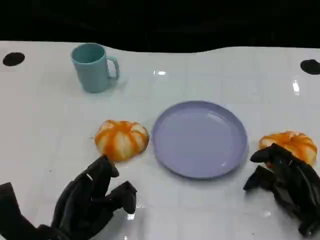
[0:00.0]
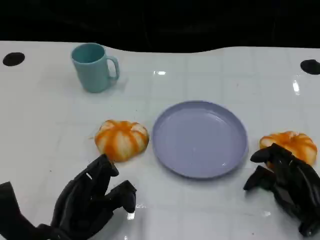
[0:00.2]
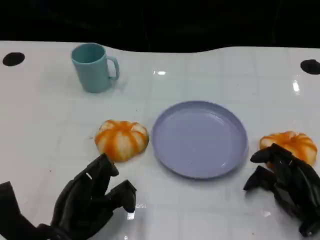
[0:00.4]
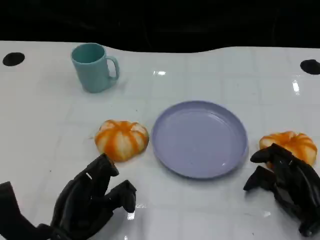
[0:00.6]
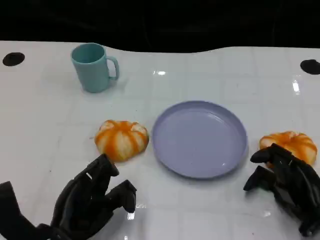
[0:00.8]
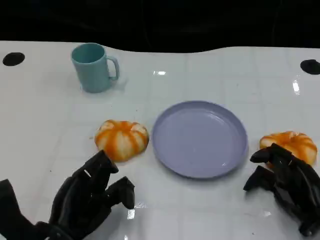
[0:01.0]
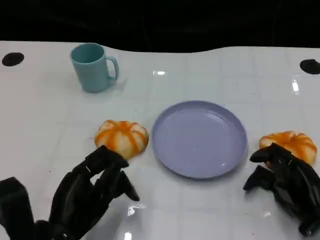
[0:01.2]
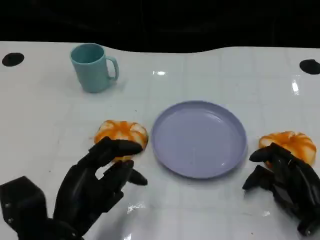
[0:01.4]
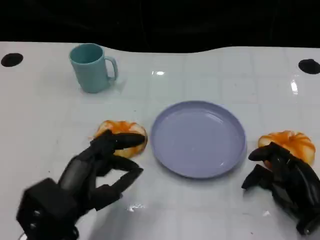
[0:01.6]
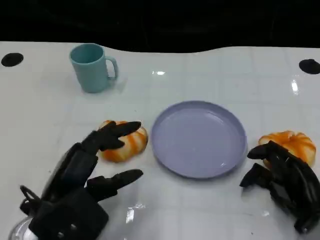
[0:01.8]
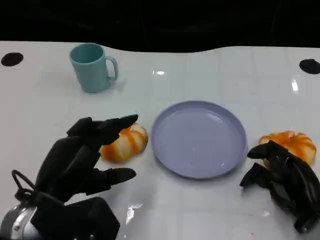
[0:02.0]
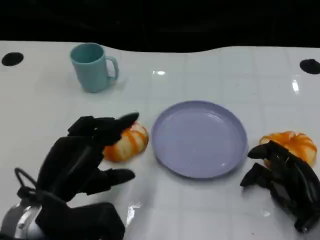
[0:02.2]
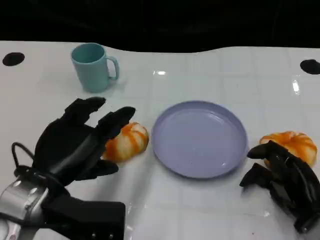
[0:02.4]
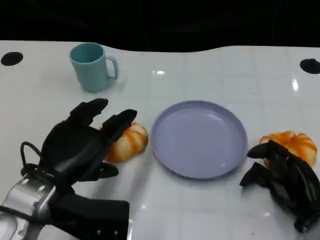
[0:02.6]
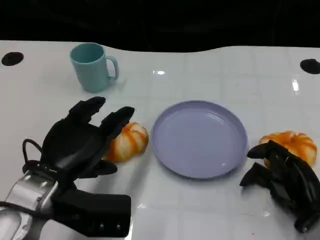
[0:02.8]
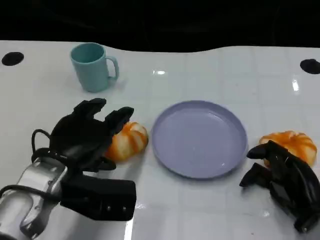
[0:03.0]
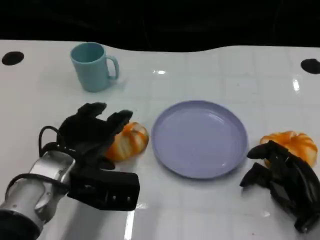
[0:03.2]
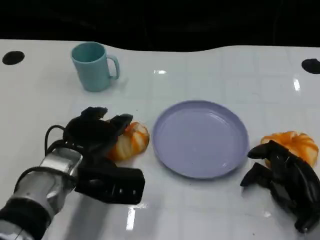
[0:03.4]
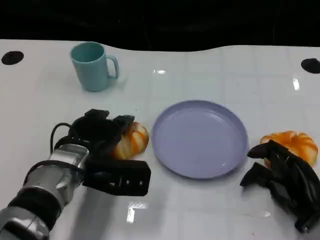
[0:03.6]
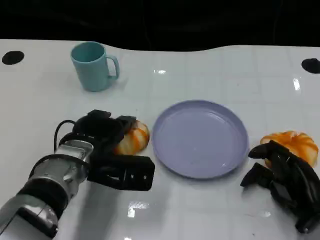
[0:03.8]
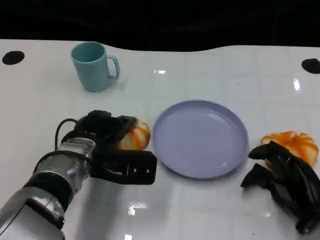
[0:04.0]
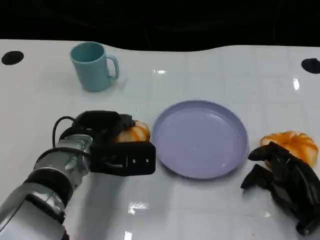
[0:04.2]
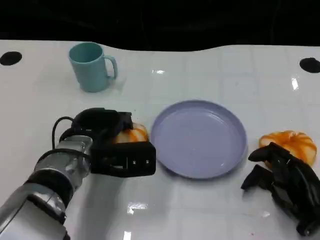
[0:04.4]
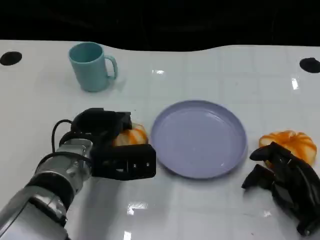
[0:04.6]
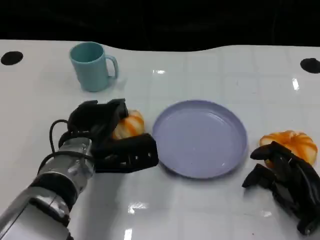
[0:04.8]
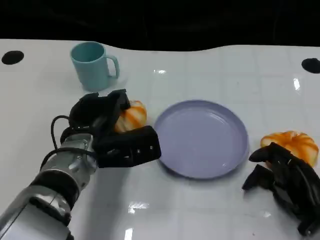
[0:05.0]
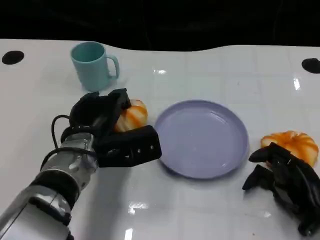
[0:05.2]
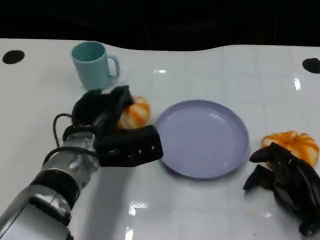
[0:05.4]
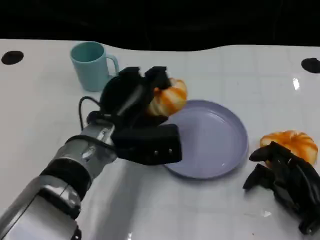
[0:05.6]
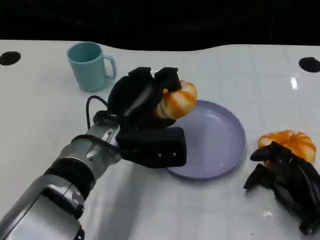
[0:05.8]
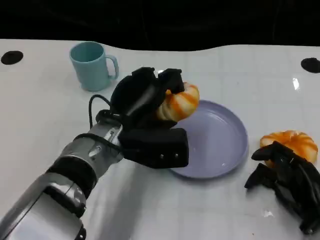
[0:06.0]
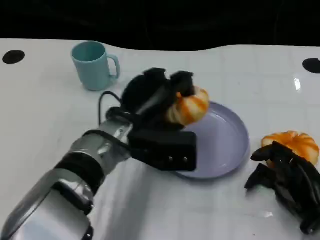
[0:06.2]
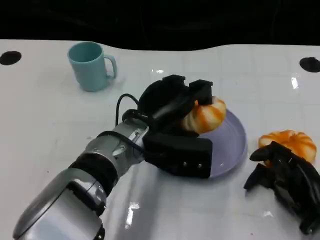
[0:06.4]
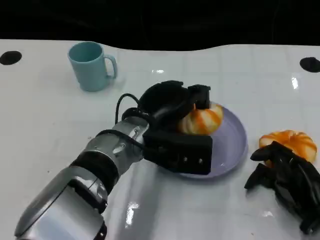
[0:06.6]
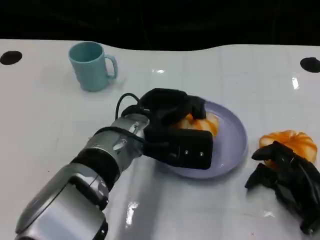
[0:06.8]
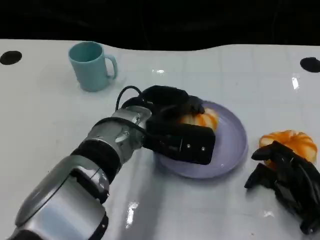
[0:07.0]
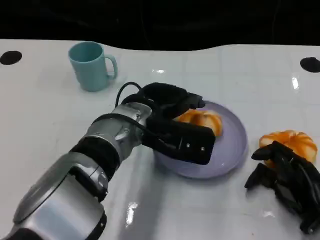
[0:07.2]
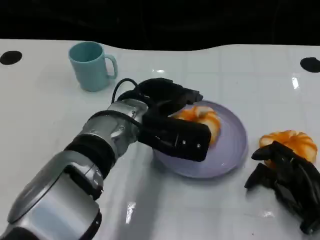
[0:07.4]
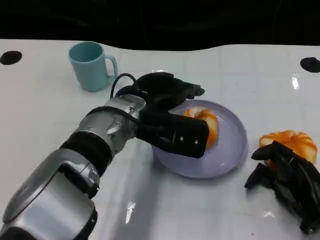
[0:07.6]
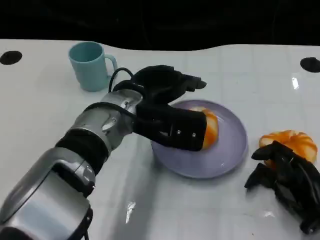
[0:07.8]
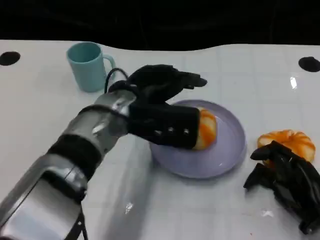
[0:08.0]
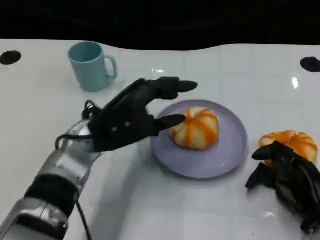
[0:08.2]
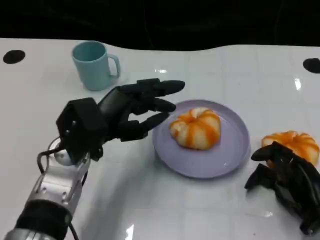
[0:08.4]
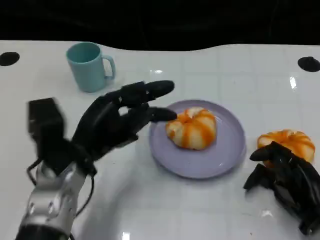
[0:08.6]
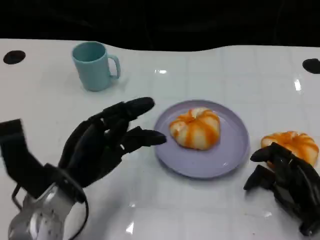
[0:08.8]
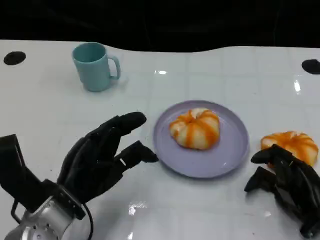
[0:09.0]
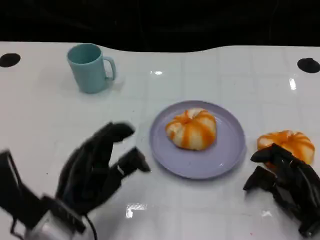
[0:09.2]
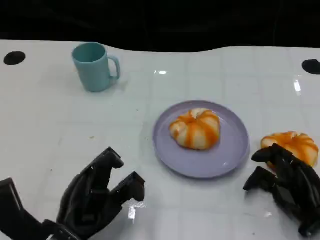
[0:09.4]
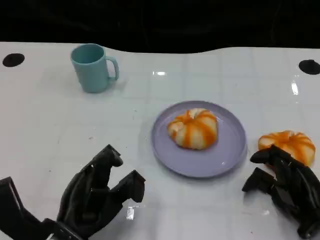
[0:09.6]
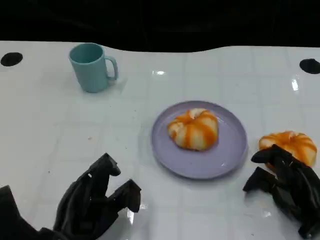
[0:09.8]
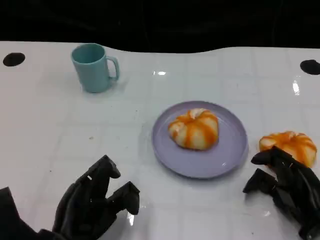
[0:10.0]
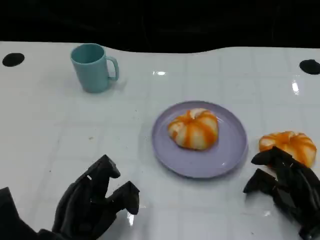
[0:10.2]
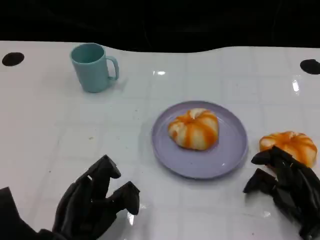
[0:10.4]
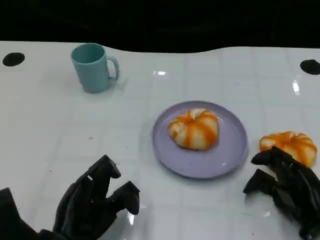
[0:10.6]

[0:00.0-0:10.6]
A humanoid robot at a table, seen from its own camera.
Task of the whole recording: Grasp the bread from the table and place it into the plate.
0:00.0 to 0:01.6: The left hand goes about 5 cm upward.
0:01.6 to 0:03.0: The left hand shifts some 10 cm forward.
0:03.0 to 0:04.6: The left hand shifts by some 5 cm.
0:04.6 to 0:06.0: The left hand heads to the right, covering some 5 cm.
0:07.6 to 0:09.0: The left hand goes about 15 cm to the left, backward and downward.
0:09.0 to 0:10.6: The left hand shifts roughly 5 cm backward.

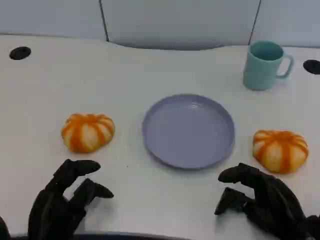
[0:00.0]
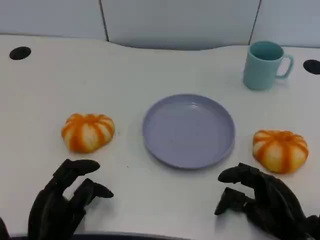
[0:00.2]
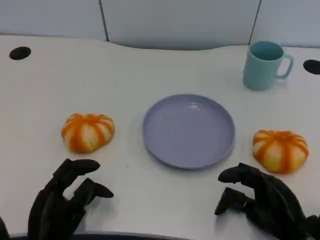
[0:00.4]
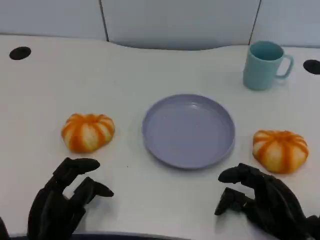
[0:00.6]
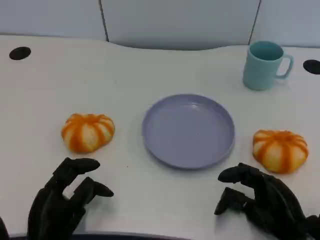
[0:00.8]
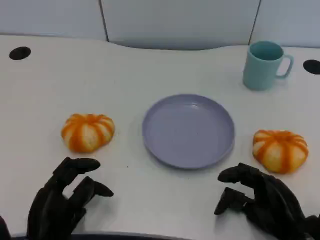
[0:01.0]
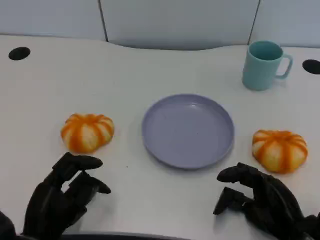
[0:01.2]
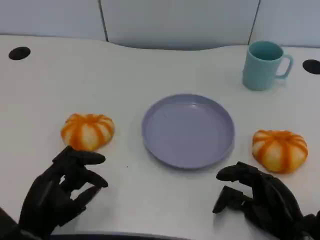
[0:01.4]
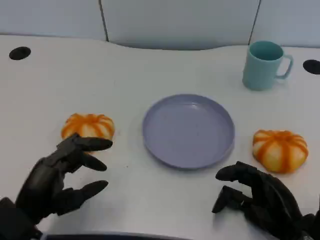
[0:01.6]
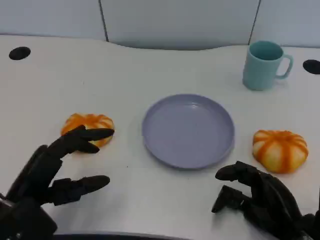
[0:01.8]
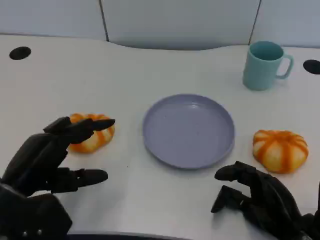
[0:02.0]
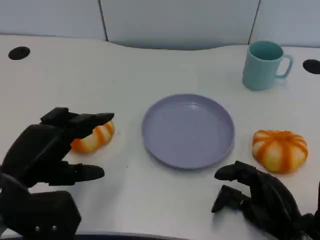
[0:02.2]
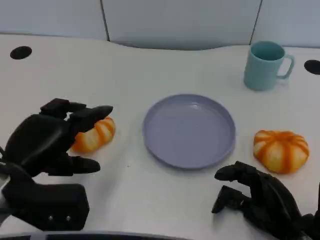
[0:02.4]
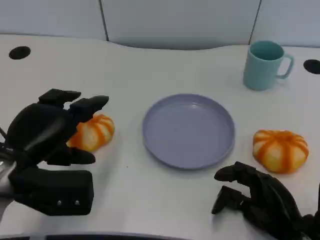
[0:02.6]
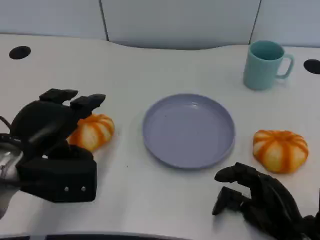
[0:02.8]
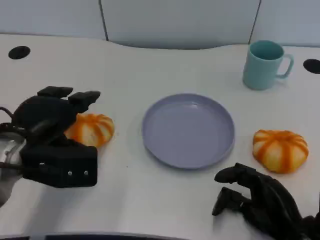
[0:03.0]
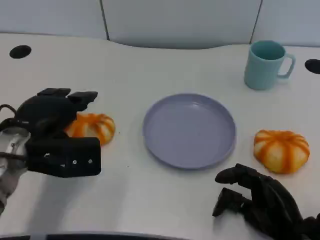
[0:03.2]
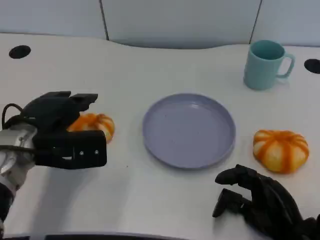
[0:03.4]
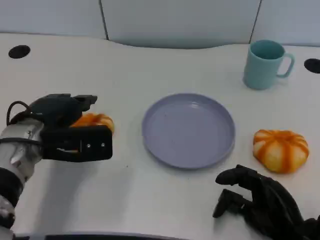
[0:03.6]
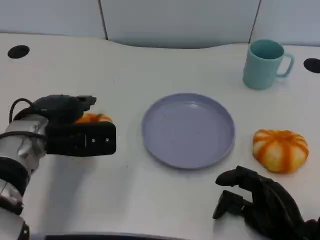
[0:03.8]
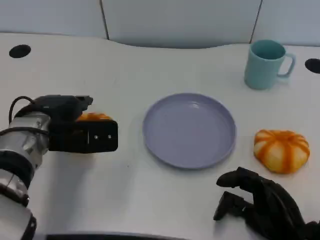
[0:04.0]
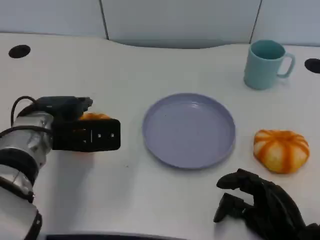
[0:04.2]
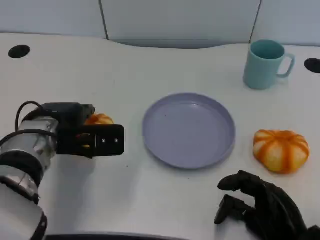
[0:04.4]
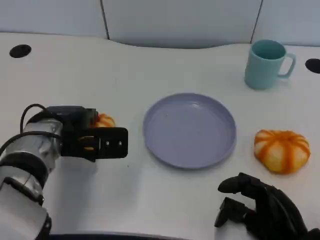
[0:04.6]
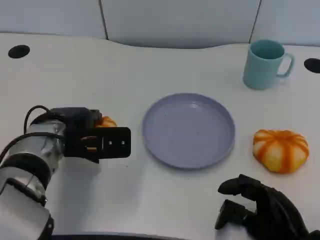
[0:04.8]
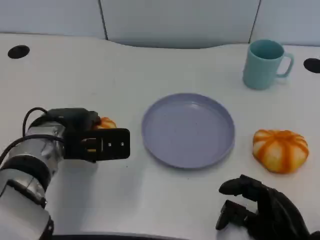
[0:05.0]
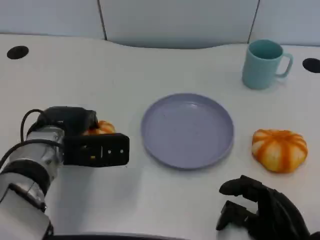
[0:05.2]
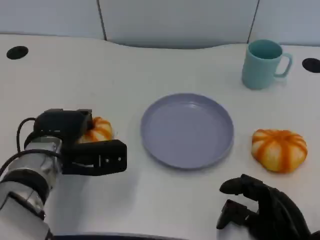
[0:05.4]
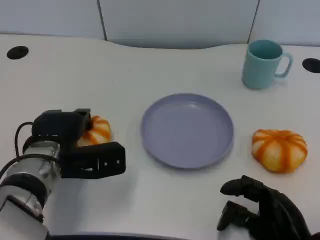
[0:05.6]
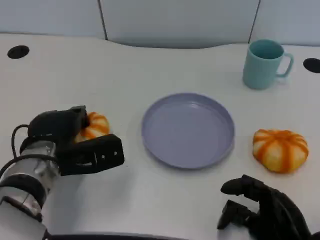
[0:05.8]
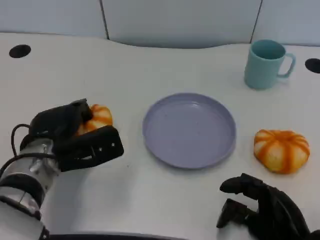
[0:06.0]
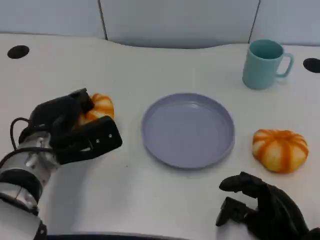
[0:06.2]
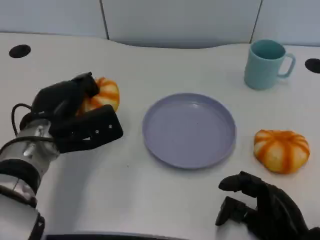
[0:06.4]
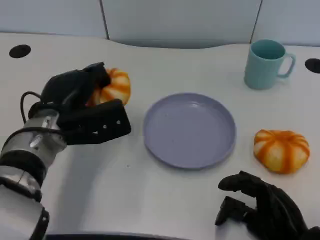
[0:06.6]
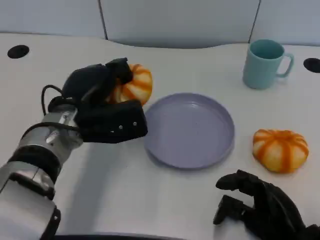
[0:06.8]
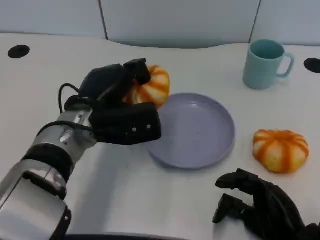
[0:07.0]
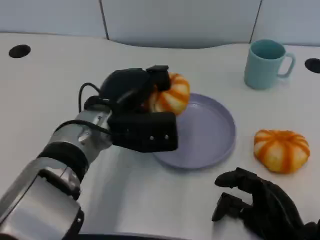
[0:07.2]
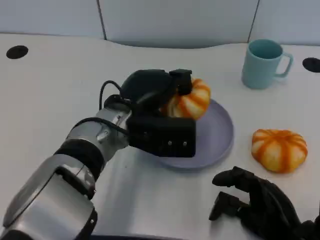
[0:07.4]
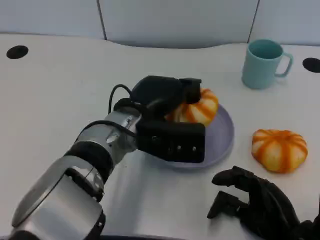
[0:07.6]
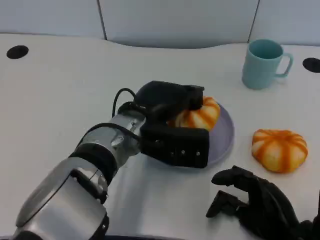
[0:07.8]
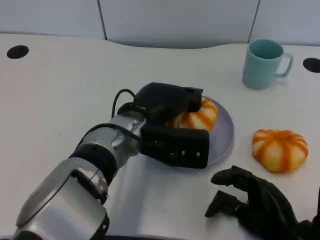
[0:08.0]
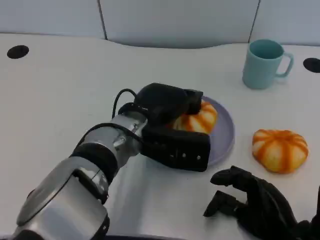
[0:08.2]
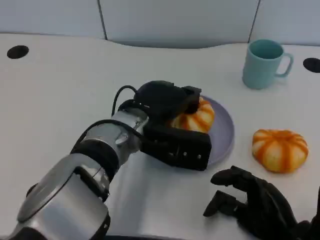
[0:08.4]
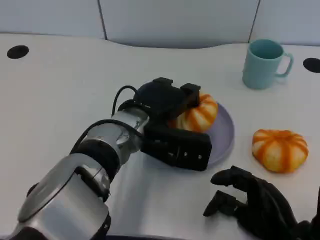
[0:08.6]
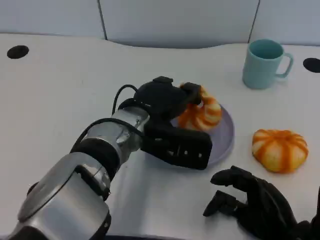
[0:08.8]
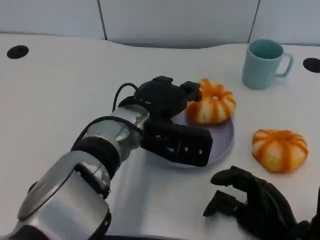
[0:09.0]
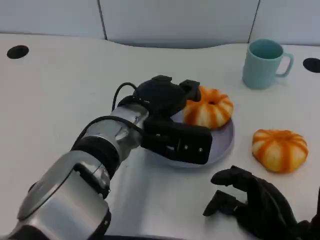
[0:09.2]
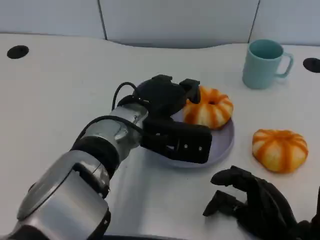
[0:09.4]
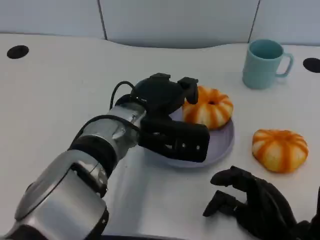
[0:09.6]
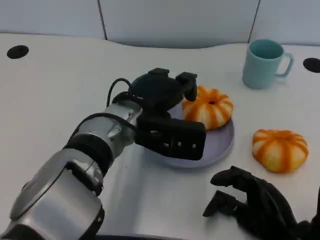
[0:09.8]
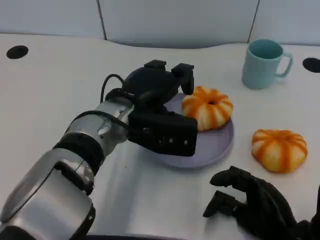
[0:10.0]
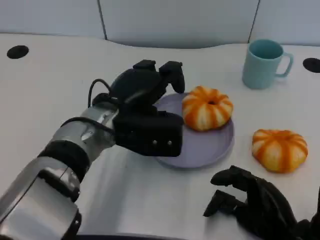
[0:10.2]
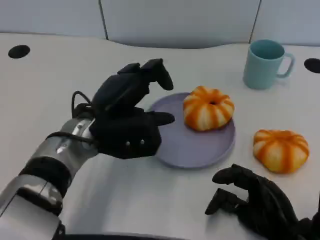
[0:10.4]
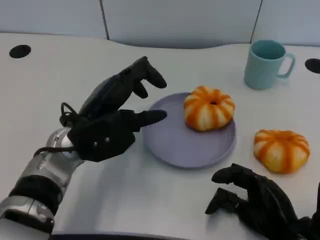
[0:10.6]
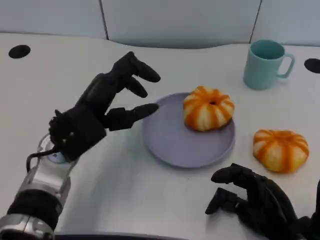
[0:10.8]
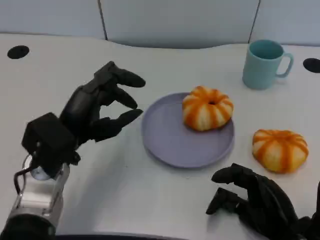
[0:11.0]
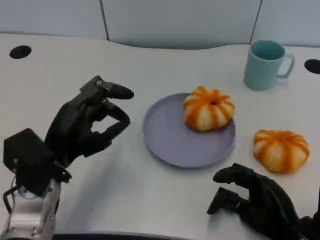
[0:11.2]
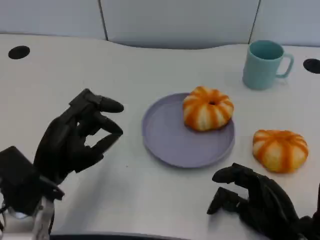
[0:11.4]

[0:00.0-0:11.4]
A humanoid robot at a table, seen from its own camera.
Task of the whole recording: Grasp the bread from the table and place it into the plate.
0:01.4 to 0:02.8: The left hand goes approximately 15 cm upward and forward.
0:02.8 to 0:04.2: The left hand shifts some 5 cm forward.
0:04.2 to 0:05.6: There are only small adjustments of the hands.
0:05.6 to 0:07.2: The left hand is displaced to the right and upward by about 10 cm.
0:08.6 to 0:10.0: The hands stay close to where they were, moving slightly.
0:10.0 to 0:11.4: The left hand is displaced to the left and backward by roughly 15 cm.
